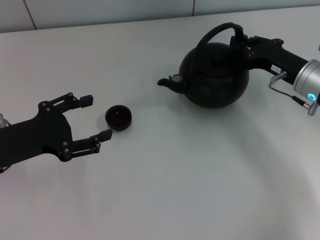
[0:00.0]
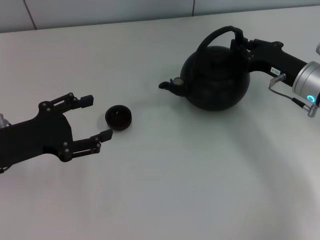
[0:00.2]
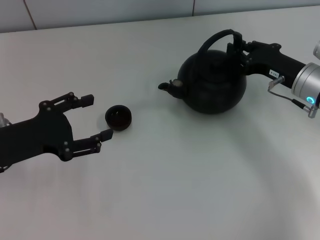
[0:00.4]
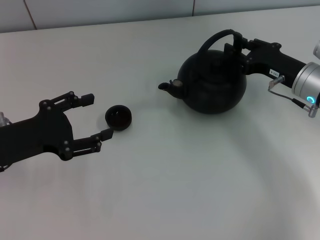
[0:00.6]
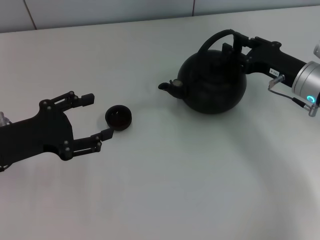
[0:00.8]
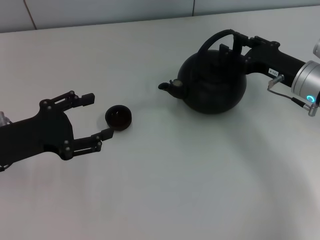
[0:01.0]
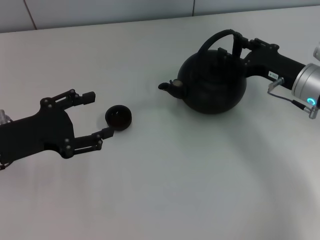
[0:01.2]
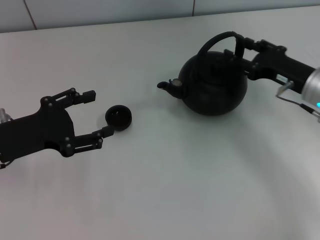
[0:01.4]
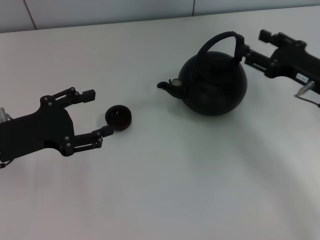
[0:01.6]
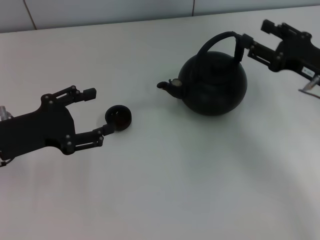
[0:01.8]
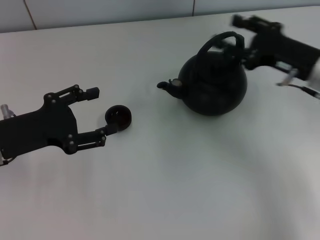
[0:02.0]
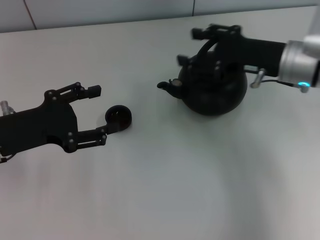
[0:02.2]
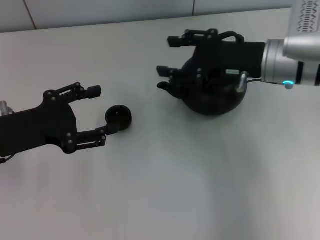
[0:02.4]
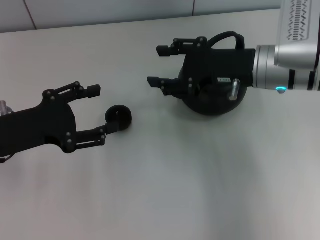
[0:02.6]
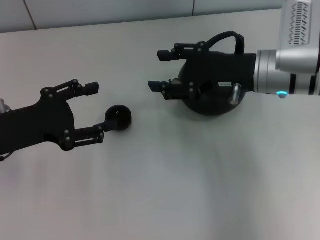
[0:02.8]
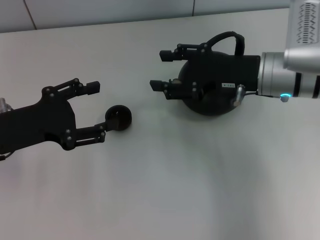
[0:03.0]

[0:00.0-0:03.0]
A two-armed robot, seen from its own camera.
Task of the whole recording: Grasp the handle of the teapot with one hand and pour tea into the teacup.
0:00.0 to 0:01.6: The right gripper ends up roughly 5 cm from where it was, and opens up.
0:01.6 to 0:03.0: The right gripper goes roughly 10 cm to the left.

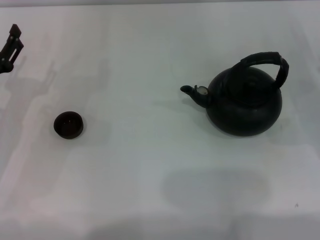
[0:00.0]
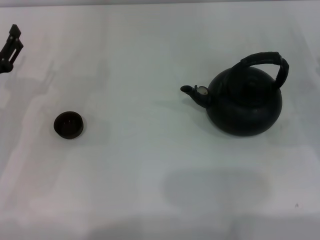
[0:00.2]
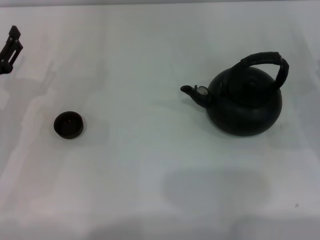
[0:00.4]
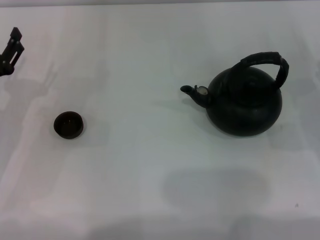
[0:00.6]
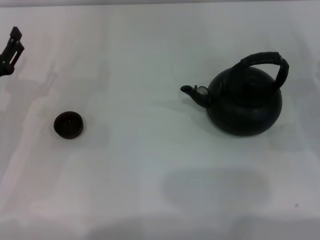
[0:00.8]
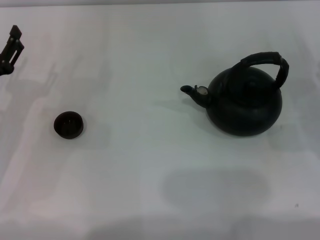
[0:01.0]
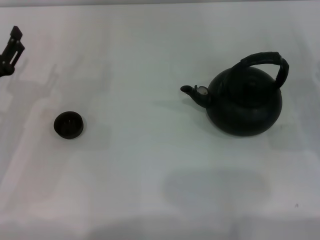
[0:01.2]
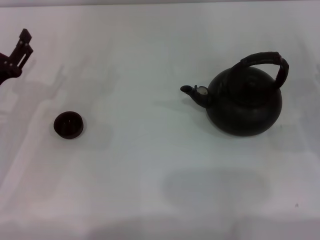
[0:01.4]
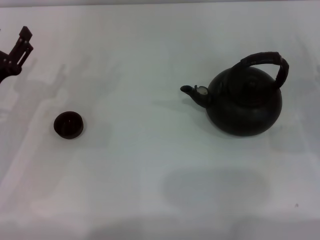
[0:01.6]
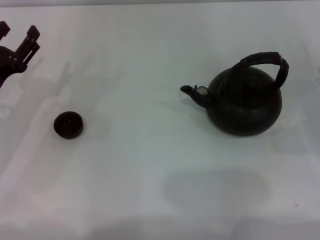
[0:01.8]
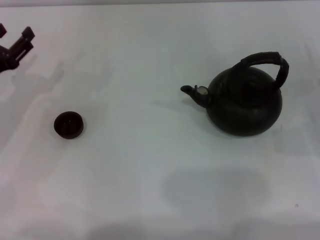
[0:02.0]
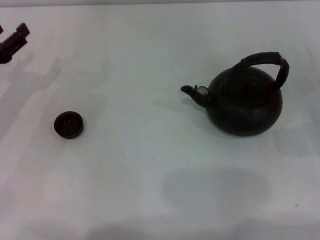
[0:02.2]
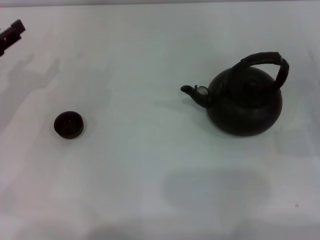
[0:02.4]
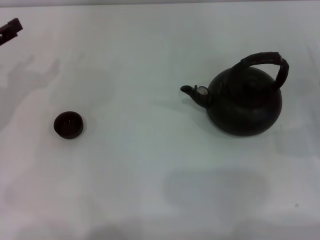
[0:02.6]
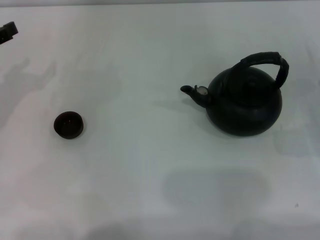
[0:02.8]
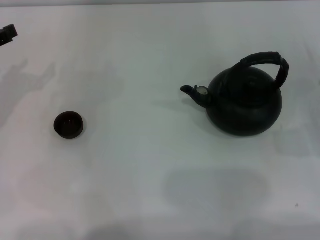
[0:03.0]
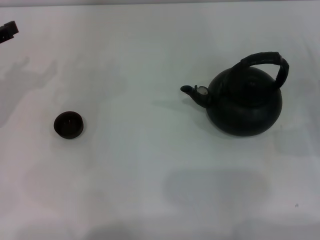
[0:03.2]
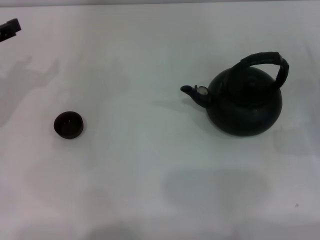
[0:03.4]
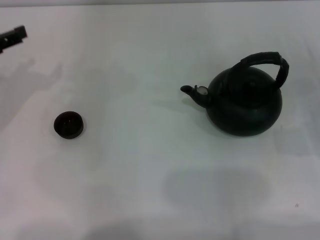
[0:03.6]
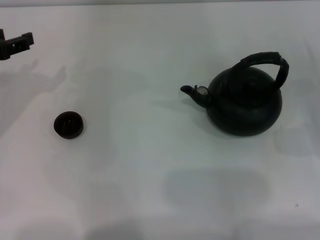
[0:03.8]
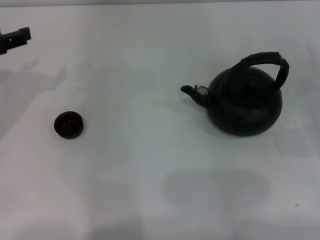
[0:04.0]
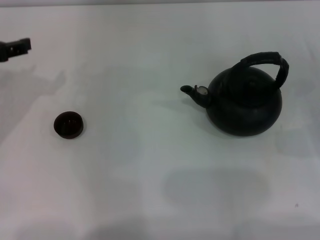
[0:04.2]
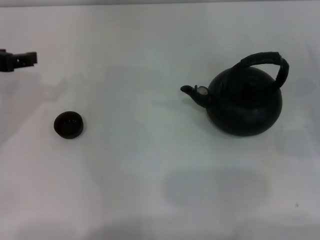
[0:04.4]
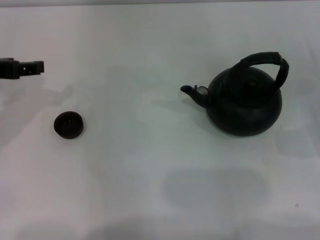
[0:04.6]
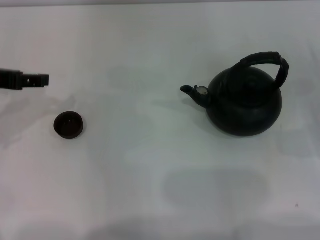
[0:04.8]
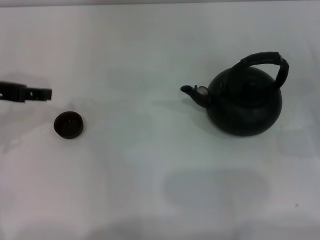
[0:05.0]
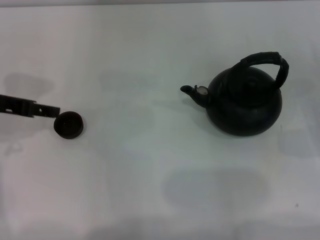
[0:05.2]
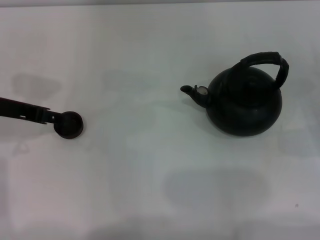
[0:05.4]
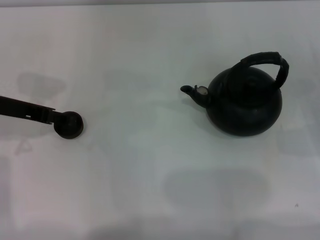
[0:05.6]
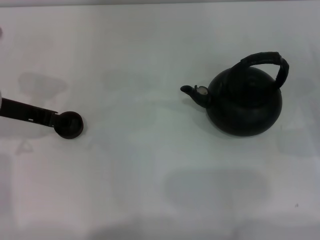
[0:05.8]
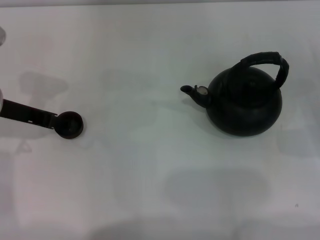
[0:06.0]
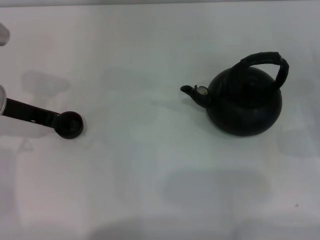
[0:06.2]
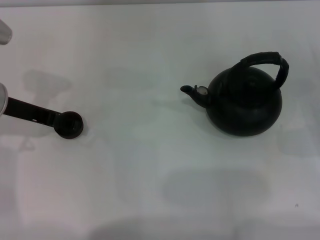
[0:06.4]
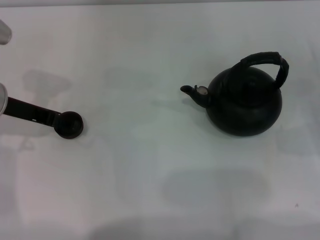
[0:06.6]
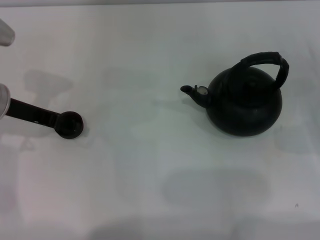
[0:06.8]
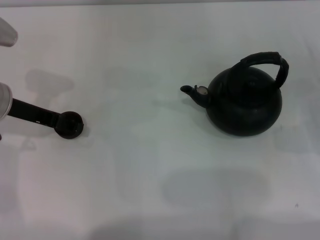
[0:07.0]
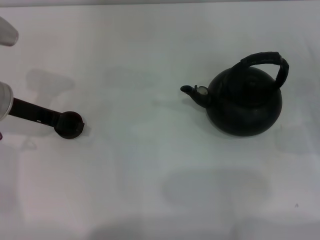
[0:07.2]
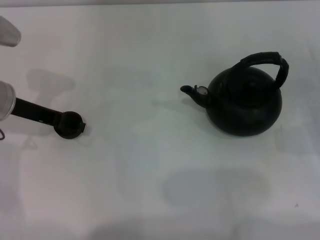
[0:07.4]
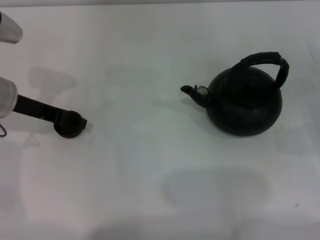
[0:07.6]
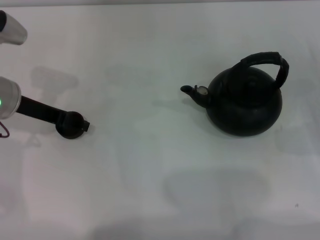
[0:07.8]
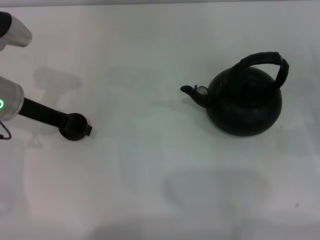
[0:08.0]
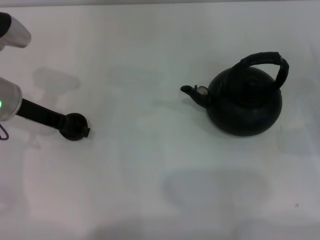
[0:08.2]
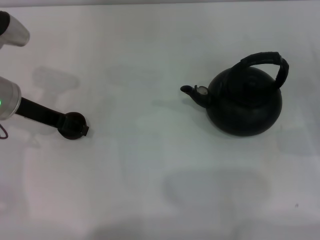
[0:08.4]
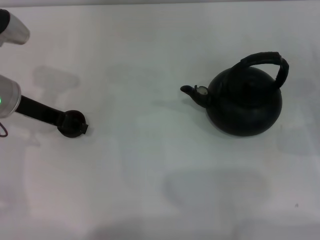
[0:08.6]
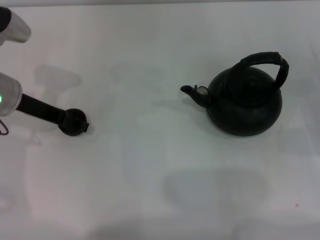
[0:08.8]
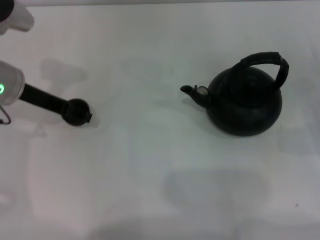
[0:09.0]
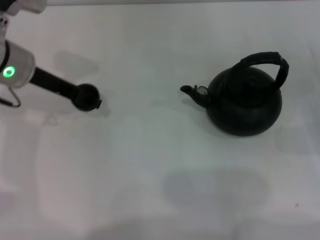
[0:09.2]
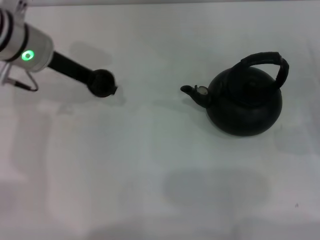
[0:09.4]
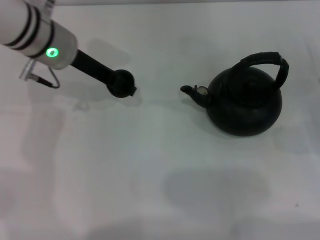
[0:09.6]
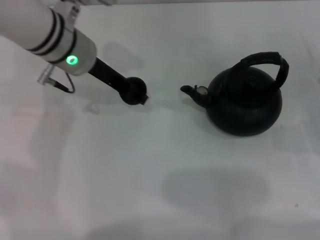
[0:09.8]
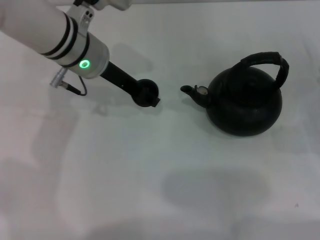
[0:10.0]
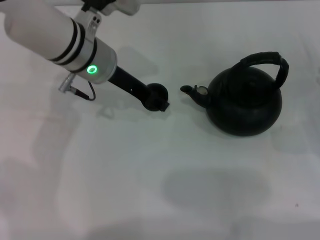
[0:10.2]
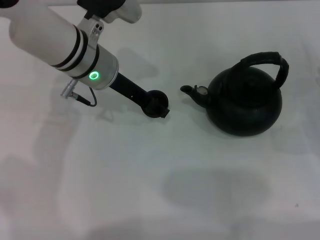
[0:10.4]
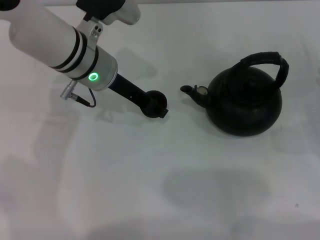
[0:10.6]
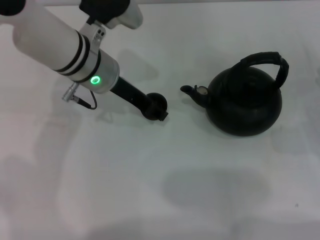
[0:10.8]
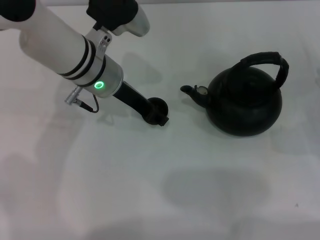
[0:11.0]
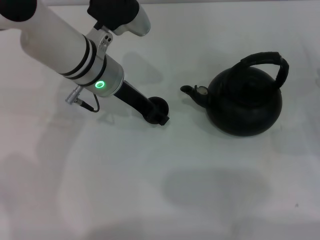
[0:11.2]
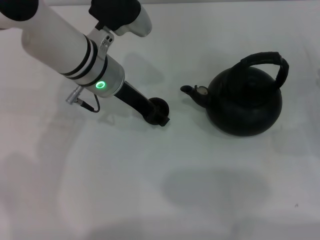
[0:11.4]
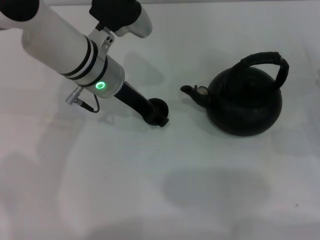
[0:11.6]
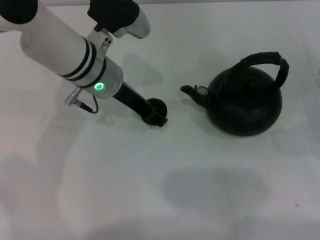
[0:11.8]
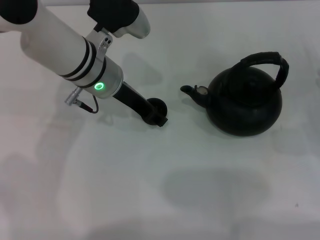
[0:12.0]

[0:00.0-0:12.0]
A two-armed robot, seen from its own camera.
Task of the whole recording: Grasp the handle of the teapot with one hand and pour tea into the teacup.
Step, 0:00.0 to 0:09.0: Pick up the teacup with the left gripper.
0:00.0 to 0:01.6: There are only small adjustments of the grippers.
0:01.6 to 0:03.0: The left gripper shifts roughly 10 cm upward.
0:03.0 to 0:04.4: The left gripper changes place by about 5 cm.
0:04.4 to 0:06.0: The left gripper changes place by roughly 5 cm.
0:06.0 to 0:07.6: There are only small adjustments of the grippers.
0:07.6 to 0:09.0: The left gripper closes its fingers.
0:09.0 to 0:10.4: The left gripper heads to the right, covering some 10 cm.
0:10.4 to 0:12.0: The grippers move only a little.

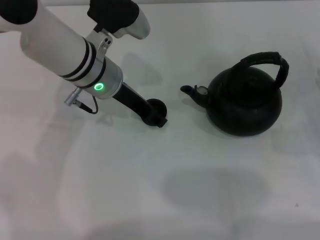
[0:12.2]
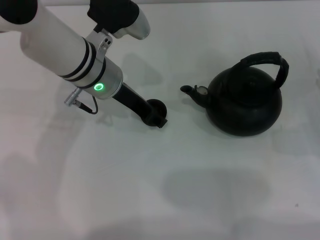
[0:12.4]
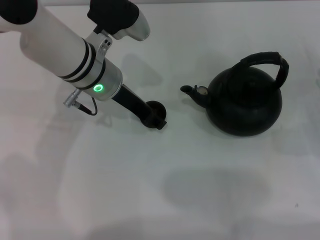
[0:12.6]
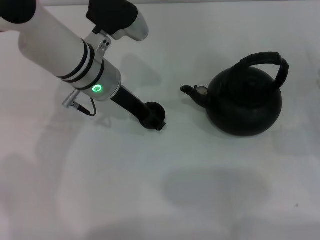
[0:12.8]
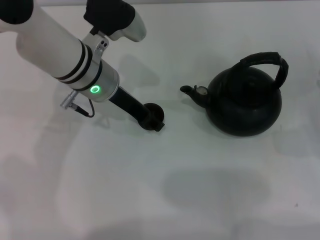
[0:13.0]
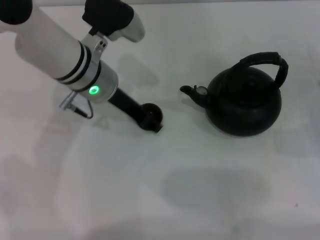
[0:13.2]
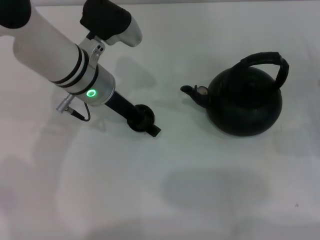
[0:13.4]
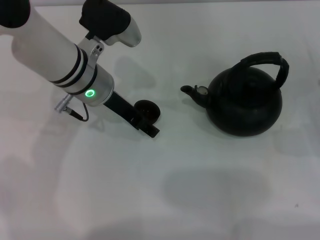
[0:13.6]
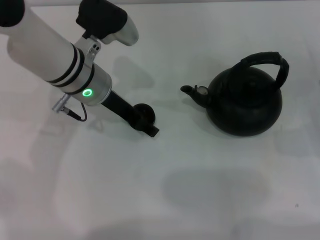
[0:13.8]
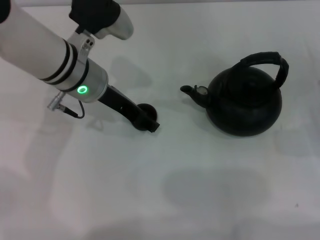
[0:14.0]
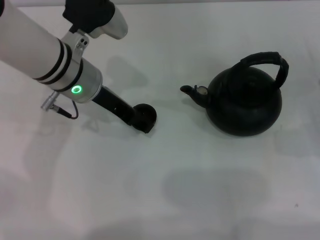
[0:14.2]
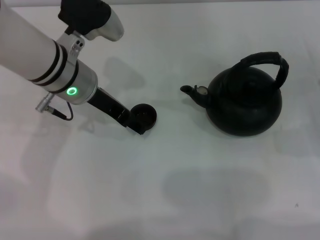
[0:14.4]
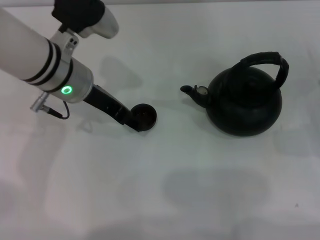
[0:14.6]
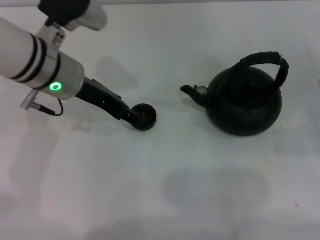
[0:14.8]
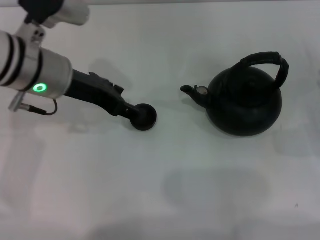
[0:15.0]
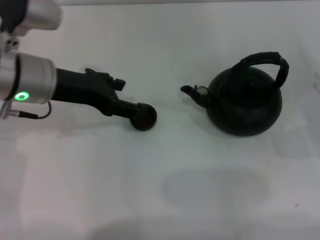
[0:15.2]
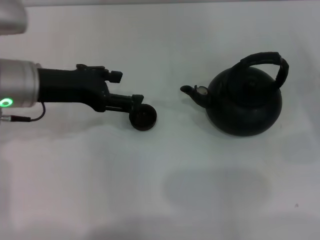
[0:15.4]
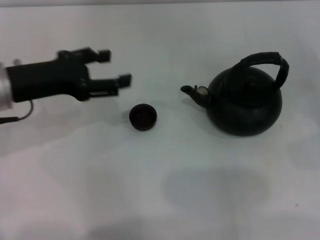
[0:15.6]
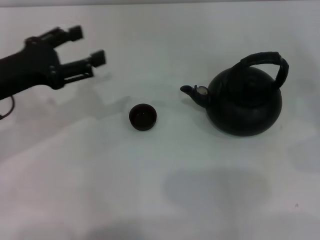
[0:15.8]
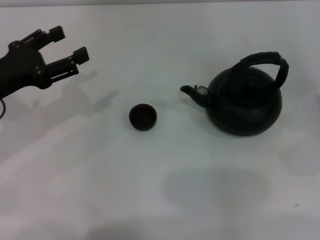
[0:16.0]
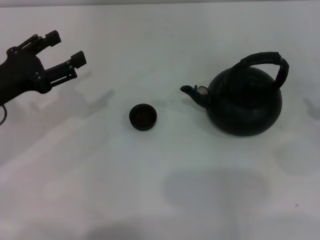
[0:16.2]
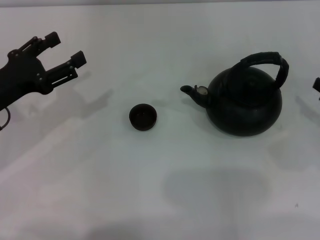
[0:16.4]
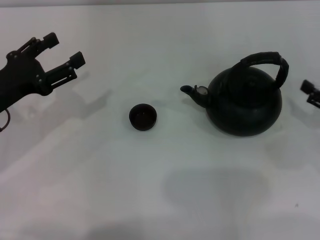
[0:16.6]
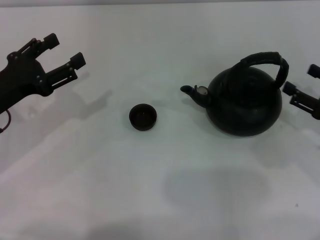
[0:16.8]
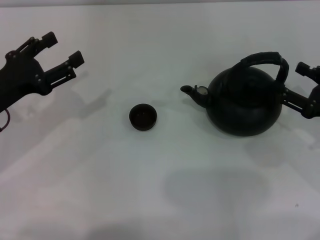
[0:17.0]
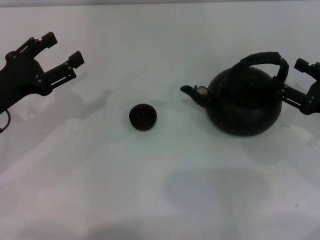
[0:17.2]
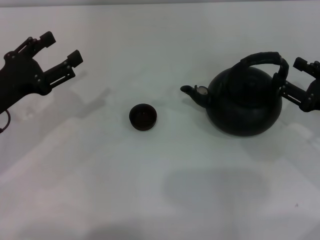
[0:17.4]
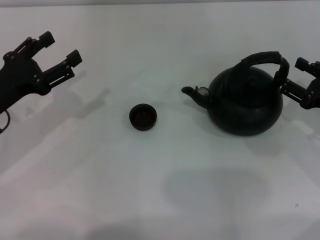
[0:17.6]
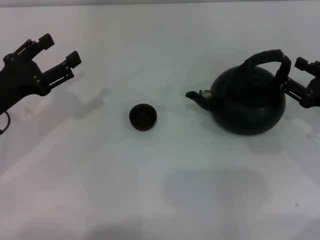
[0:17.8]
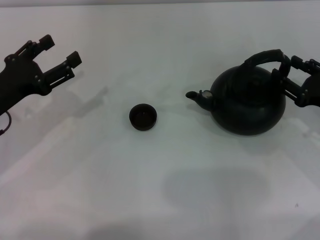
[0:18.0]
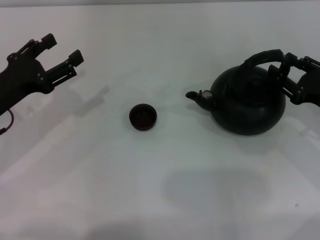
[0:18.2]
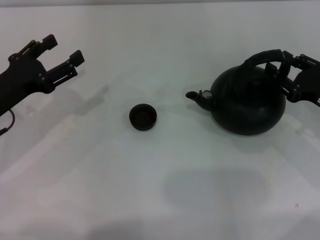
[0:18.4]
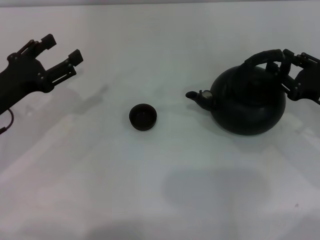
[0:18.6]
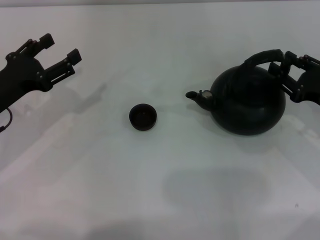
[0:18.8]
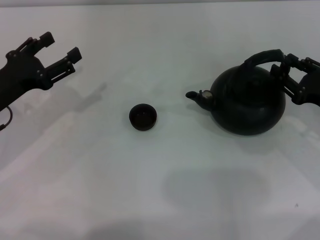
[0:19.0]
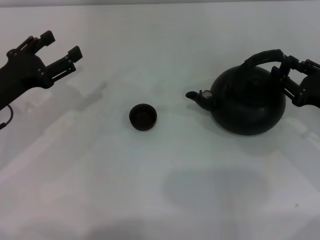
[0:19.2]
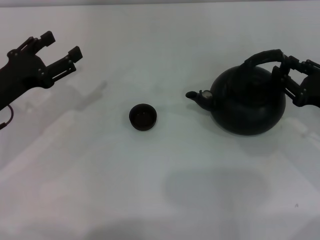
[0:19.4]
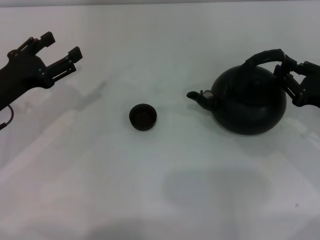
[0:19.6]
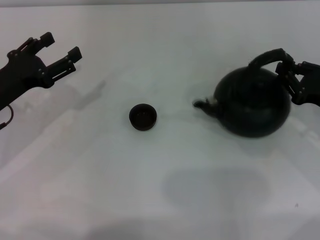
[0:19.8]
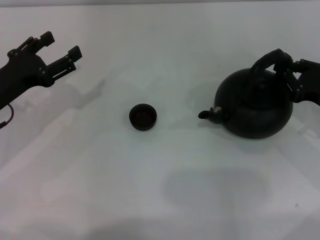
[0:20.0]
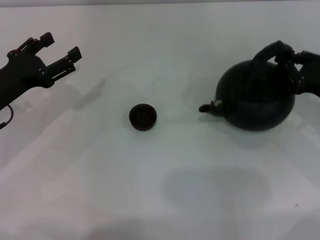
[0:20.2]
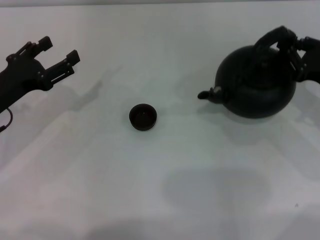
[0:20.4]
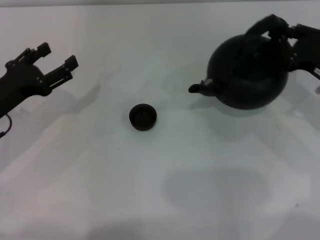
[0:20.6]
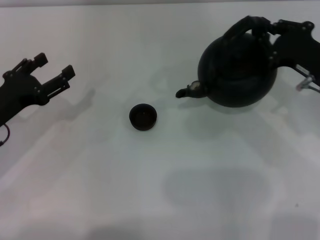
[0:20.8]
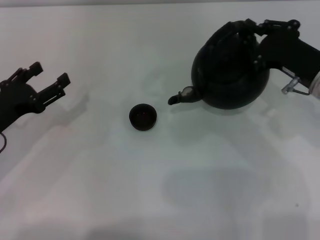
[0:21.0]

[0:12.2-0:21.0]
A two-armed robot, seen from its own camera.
Task of the whole recording: Grasp the handle of the teapot with one hand and pour tea into the teacup.
Step, 0:12.2 to 0:15.0: Place the teacup in the center of view with the left gripper.
Step, 0:15.2 to 0:20.8: Pick up the teapot with the right gripper.
0:12.2 to 0:13.6: The left gripper opens.
0:13.6 to 0:15.2: The left gripper travels to the left by about 5 cm.
0:15.2 to 0:16.6: The left gripper goes some 15 cm to the left and downward.
0:16.6 to 0:18.0: The right gripper moves approximately 5 cm.
0:18.0 to 0:19.6: The grippers stay close to where they were, moving slightly.
0:19.6 to 0:21.0: The right gripper travels to the left and upward by approximately 10 cm, and closes its fingers.
